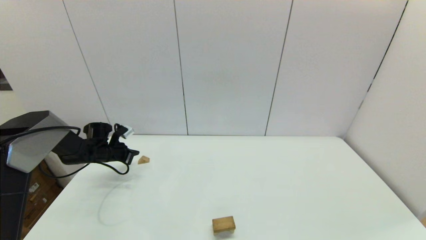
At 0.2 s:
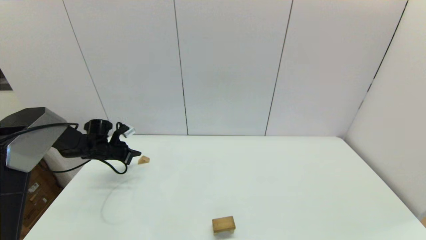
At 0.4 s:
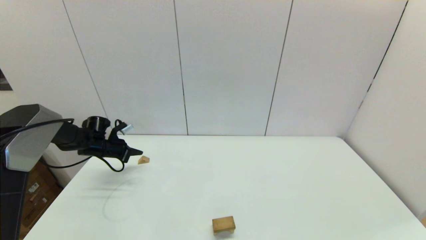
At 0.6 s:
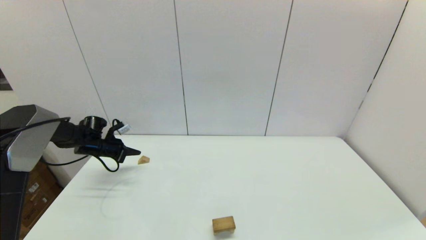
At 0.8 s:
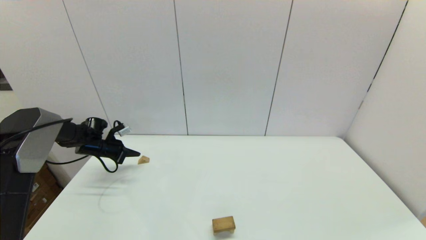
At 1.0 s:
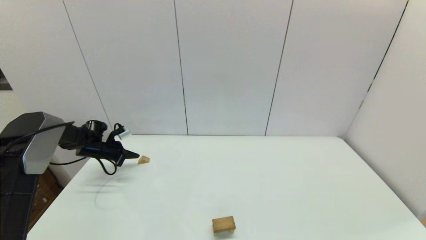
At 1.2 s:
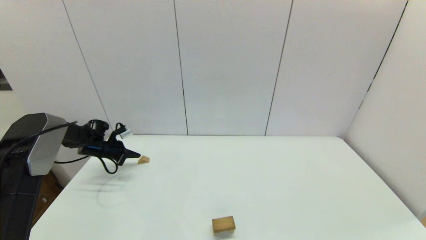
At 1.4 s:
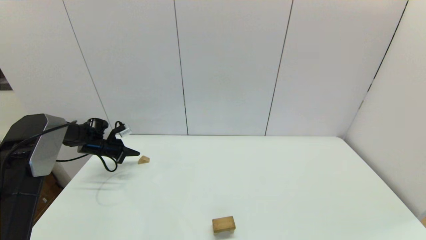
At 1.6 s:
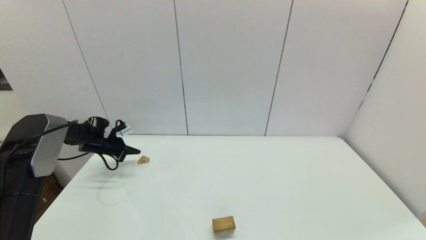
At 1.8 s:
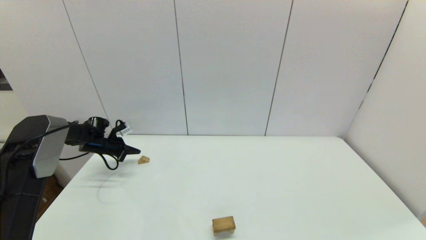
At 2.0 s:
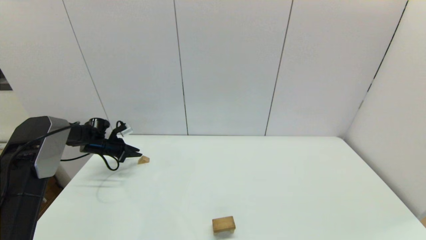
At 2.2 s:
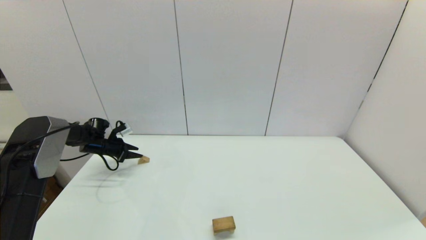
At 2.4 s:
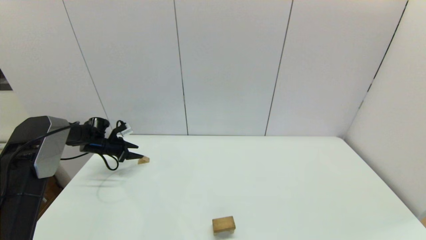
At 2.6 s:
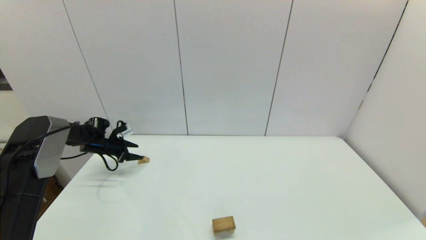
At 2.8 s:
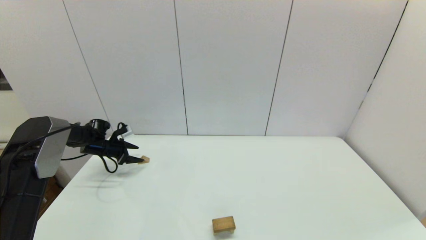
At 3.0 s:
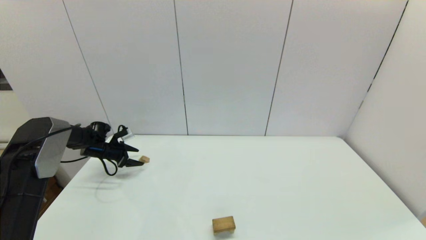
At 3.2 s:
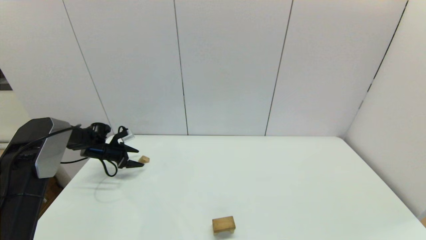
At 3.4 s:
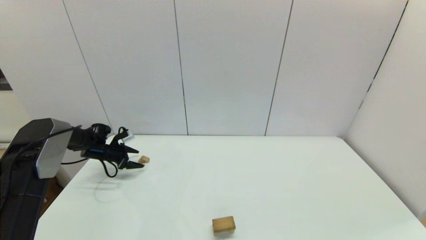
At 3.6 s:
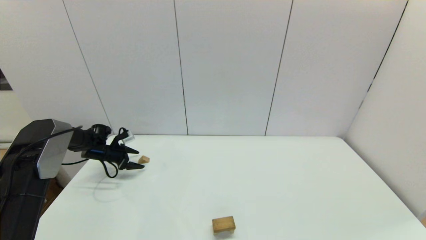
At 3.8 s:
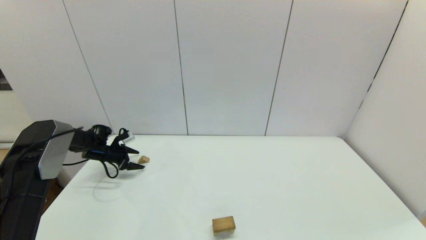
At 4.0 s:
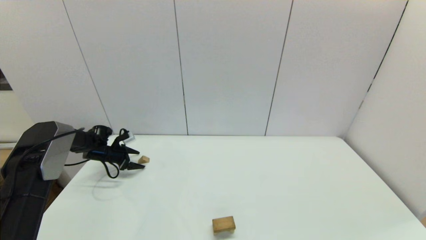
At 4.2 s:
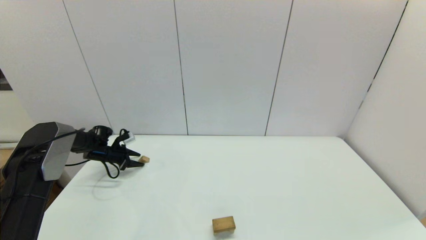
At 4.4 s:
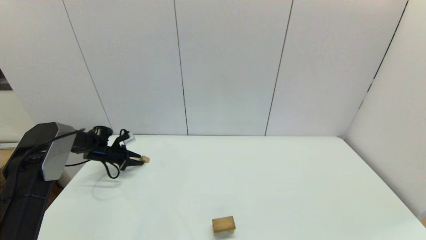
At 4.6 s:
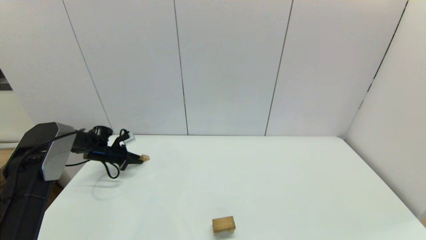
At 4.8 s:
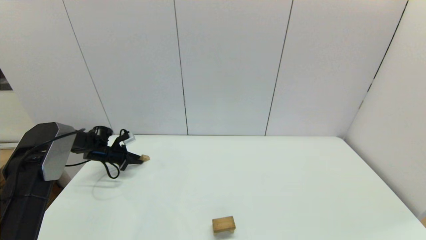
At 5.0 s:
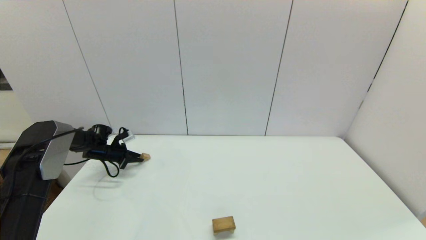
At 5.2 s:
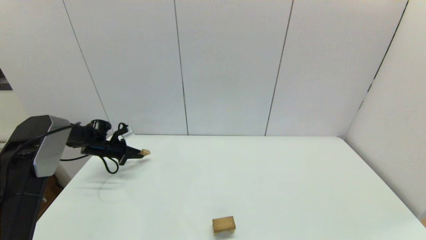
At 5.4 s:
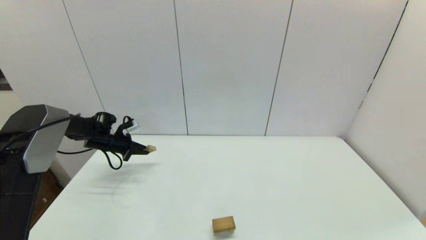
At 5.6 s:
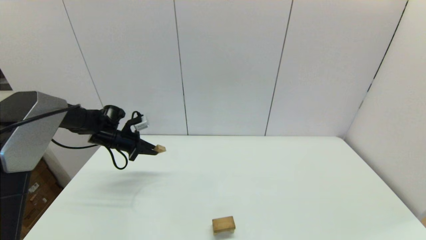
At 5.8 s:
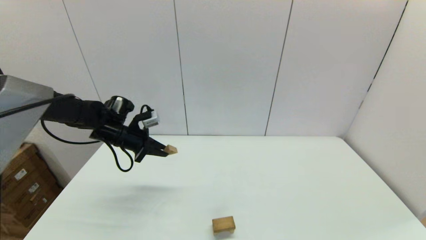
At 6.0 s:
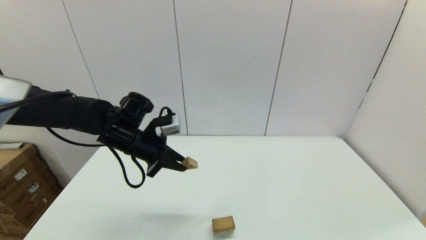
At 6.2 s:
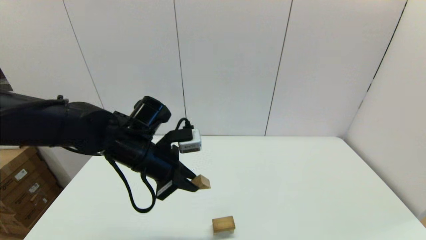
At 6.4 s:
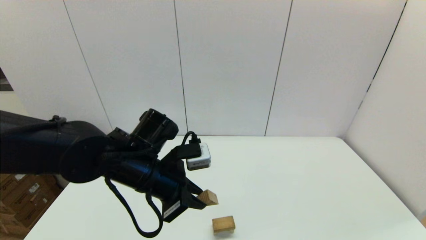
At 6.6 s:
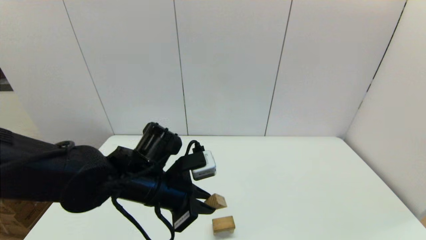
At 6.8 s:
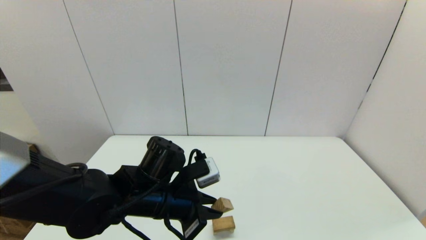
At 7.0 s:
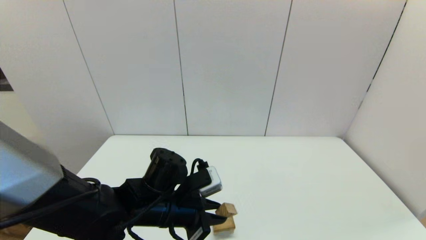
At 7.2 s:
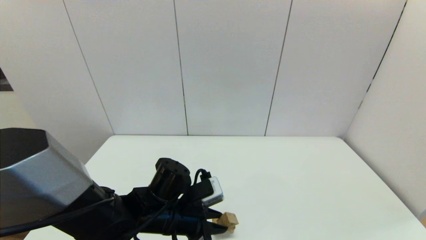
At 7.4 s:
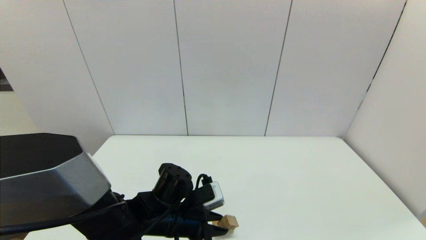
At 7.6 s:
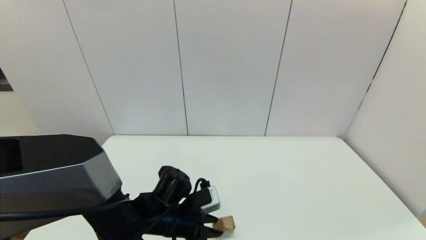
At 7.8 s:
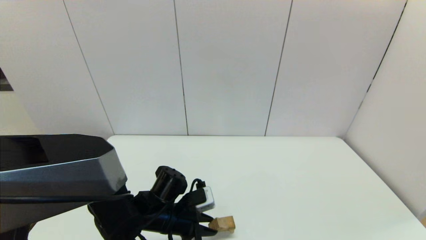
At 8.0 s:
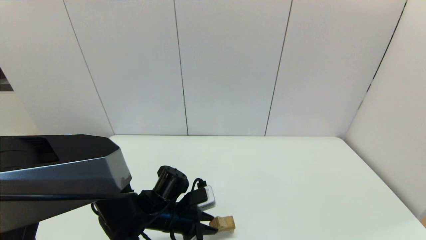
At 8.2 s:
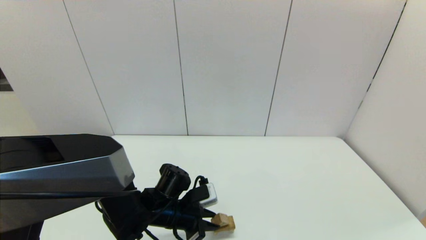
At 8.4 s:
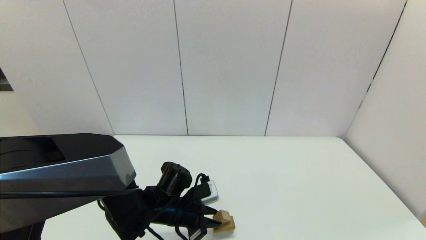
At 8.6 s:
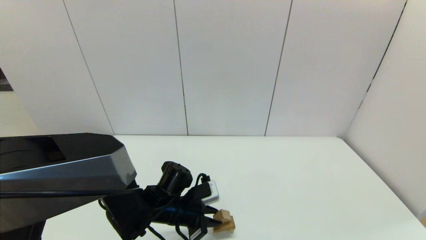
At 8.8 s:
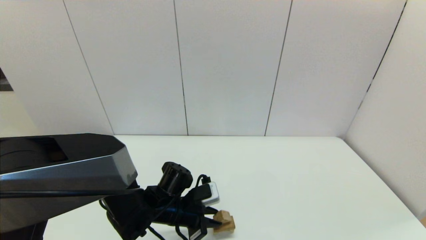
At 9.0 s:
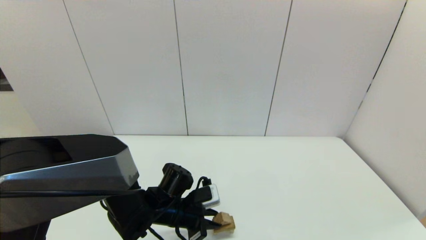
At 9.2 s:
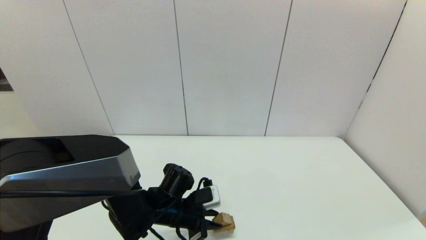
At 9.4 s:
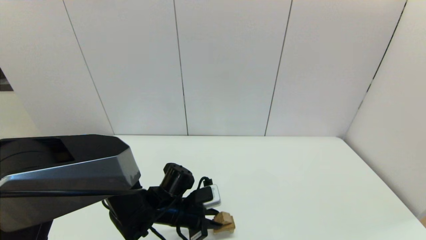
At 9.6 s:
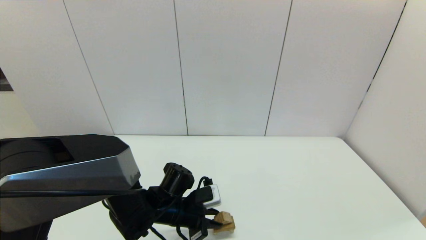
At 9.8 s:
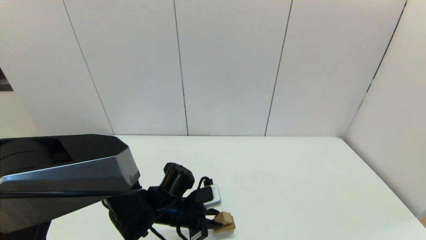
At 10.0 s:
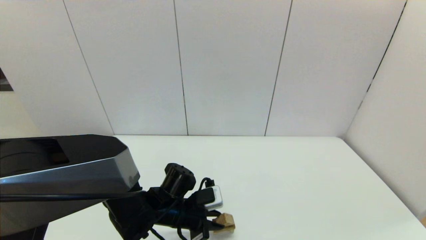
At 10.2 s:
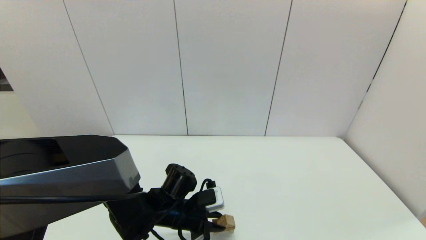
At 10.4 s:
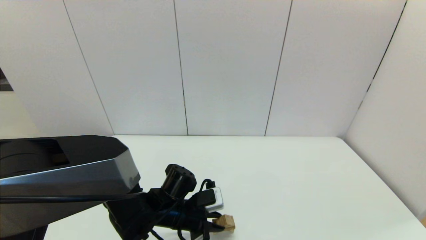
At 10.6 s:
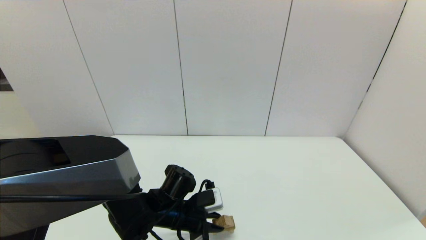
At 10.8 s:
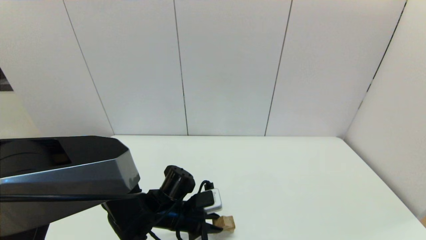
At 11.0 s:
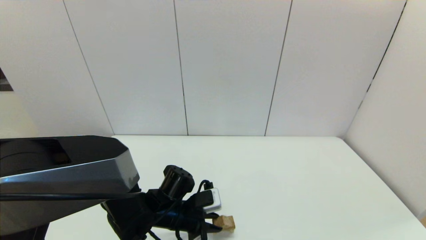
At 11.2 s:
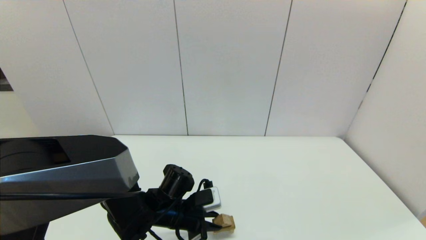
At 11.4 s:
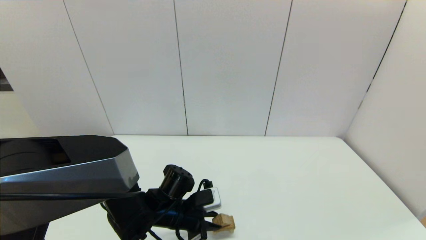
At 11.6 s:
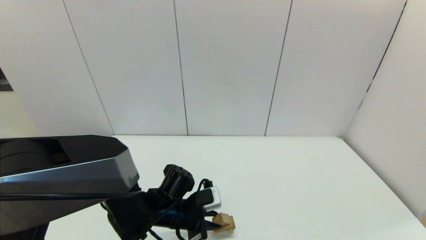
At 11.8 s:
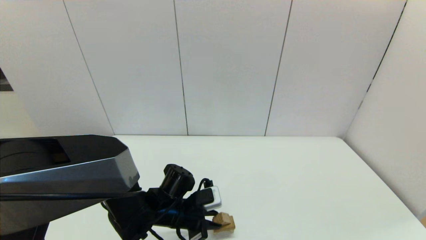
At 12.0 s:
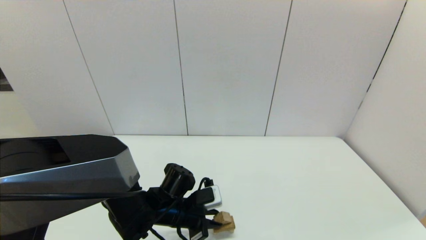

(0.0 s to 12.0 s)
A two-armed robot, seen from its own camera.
Task of the whole recording: place the arched building blocks in the center of the table, set up the rectangular building blocks, and then set up the triangular building blocks.
Step, 0.0 s - 4.6 s: Grasp the triangle-shaped block with the left gripper.
0.0 s - 1.6 s: The left gripper ends up approximately 5 cm from where it was.
1.6 s - 3.0 s: The left gripper opens.
3.0 s - 4.4 s: The left gripper closes up.
4.4 s - 6.0 s: The left gripper moves to the right, upward and backward, about 35 cm.
6.0 s - 7.6 s: The left gripper moves downward, backward and to the right, some 20 cm.
7.6 s - 9.0 s: The grippers make only small movements.
9.0 s - 12.0 s: Both grippers stay about where they are.

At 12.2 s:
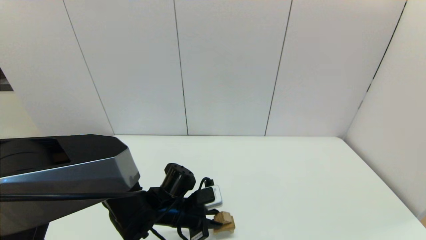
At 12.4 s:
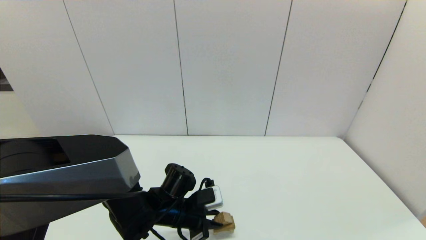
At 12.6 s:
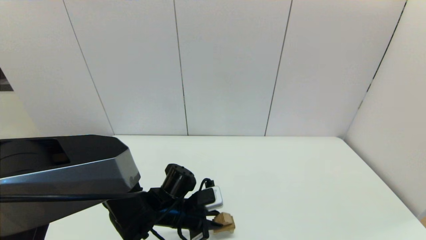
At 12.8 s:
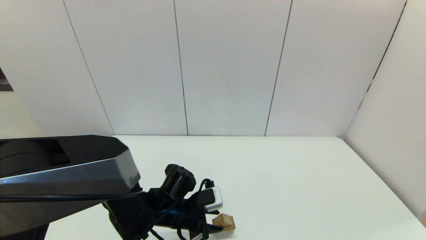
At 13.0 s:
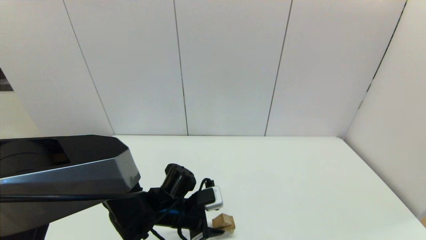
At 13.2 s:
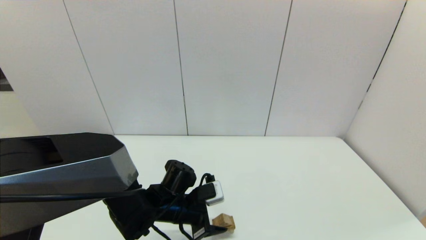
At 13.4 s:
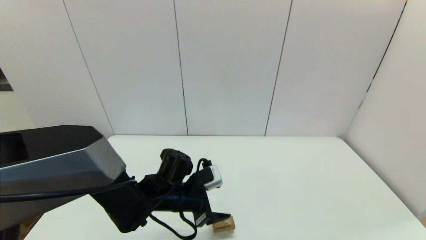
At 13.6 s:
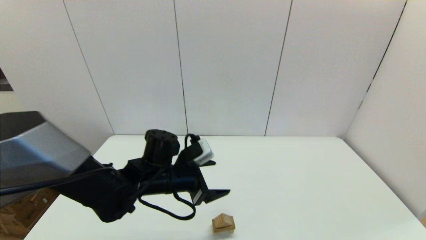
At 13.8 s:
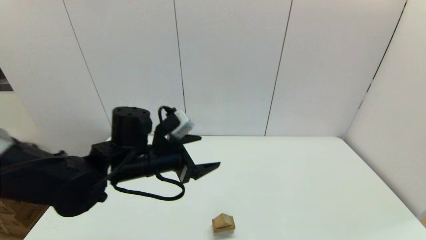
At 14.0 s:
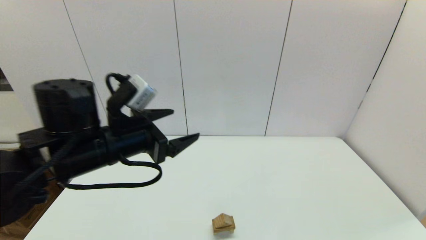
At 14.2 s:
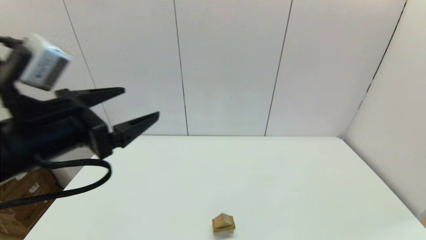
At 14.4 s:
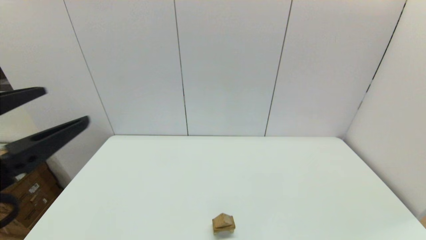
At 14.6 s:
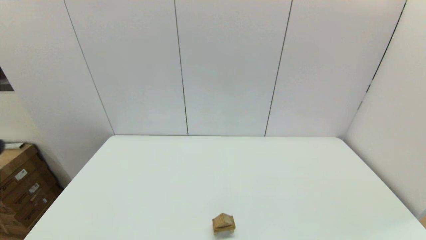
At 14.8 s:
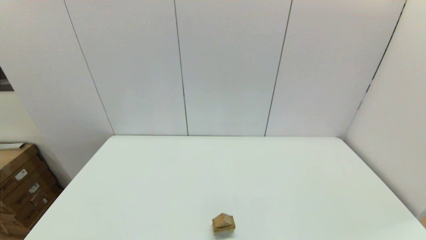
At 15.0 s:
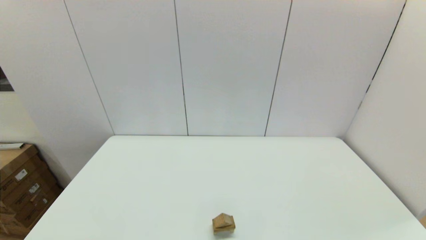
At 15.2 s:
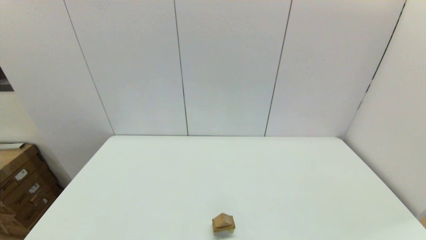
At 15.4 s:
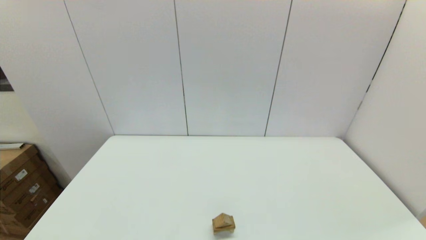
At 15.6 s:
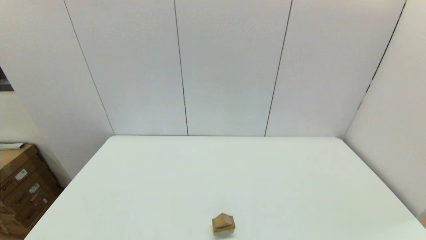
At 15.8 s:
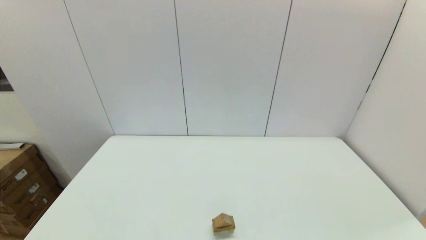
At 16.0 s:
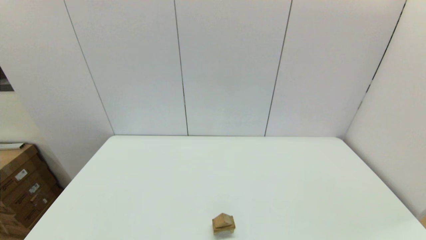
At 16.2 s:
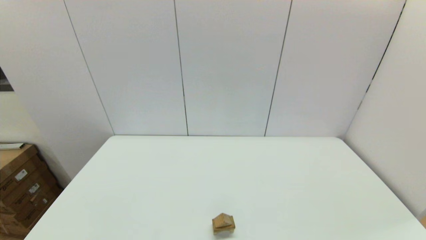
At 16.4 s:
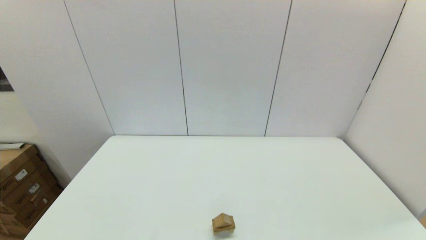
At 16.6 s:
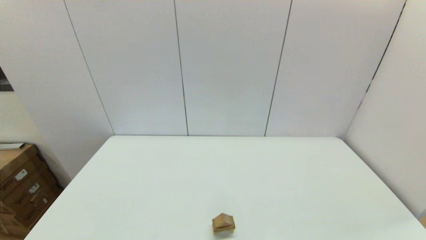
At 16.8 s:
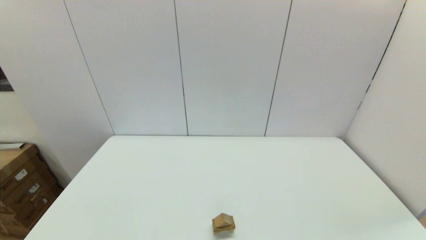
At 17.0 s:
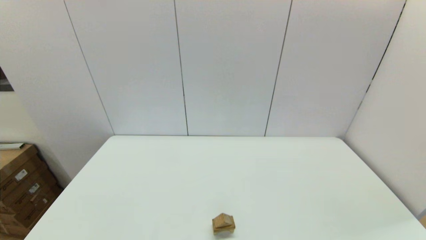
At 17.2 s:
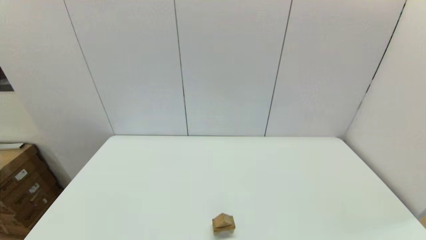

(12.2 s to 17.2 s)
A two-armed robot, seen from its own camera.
Task of the whole recording: place the arched building blocks in the center of the table, set up the rectangular building blocks, and then set up the triangular building blocks.
12.2 s - 13.8 s: The left gripper shifts some 15 cm upward, and opens its fingers.
13.8 s - 15.6 s: The left gripper heads backward and to the left, covering roughly 35 cm.
